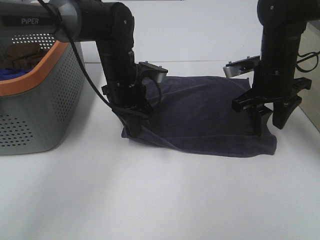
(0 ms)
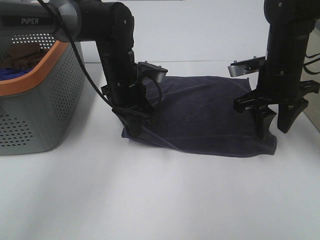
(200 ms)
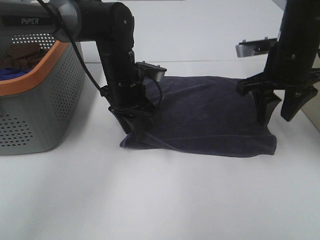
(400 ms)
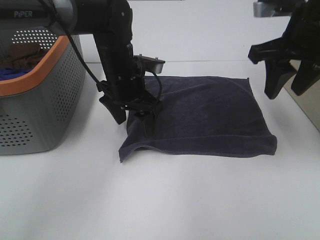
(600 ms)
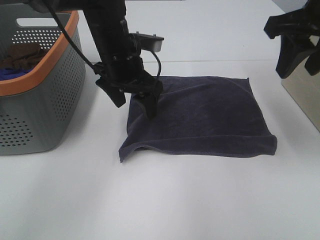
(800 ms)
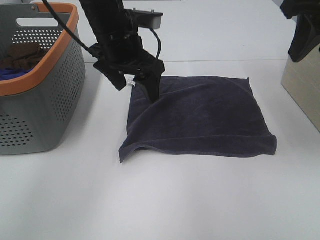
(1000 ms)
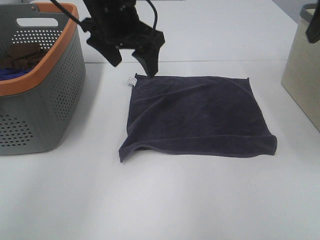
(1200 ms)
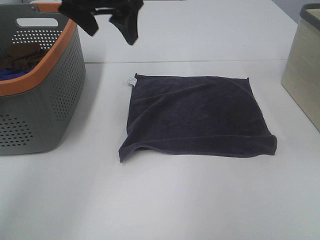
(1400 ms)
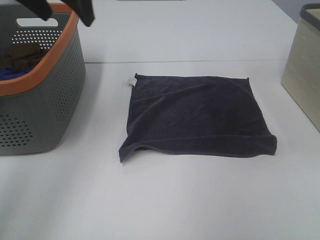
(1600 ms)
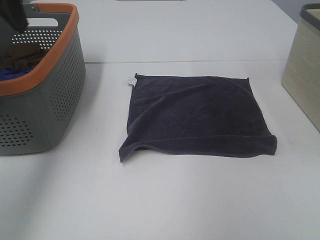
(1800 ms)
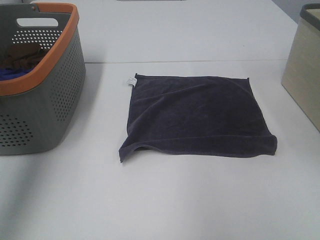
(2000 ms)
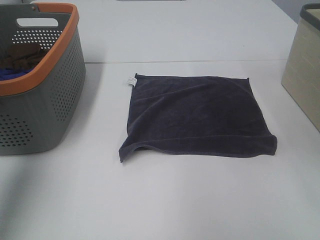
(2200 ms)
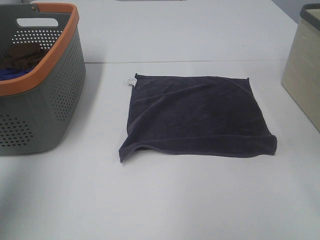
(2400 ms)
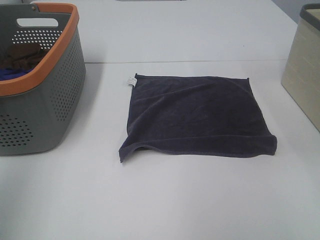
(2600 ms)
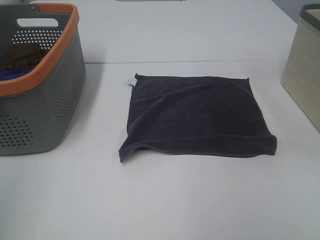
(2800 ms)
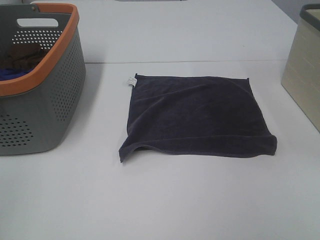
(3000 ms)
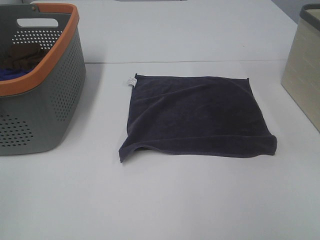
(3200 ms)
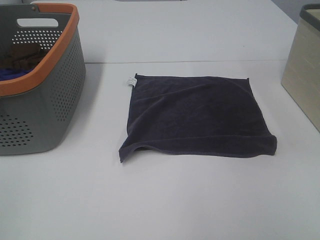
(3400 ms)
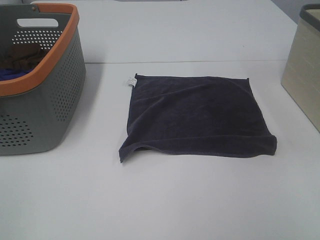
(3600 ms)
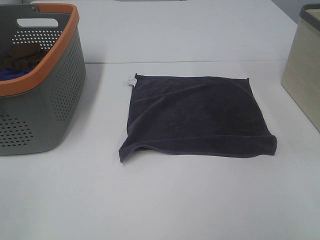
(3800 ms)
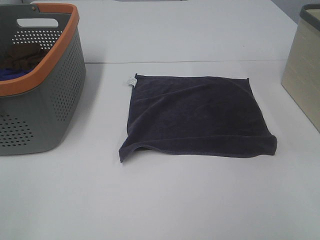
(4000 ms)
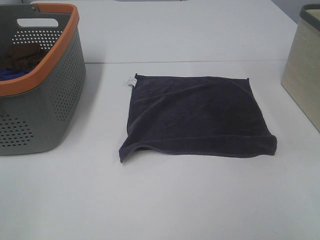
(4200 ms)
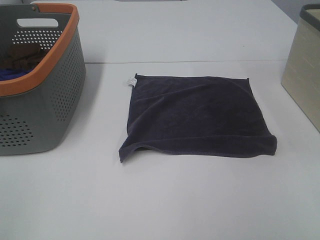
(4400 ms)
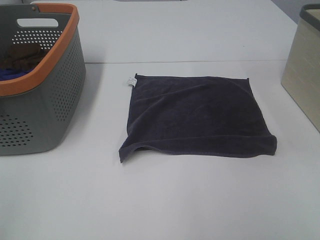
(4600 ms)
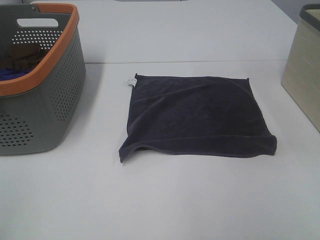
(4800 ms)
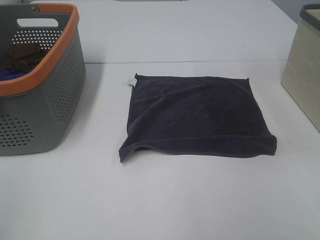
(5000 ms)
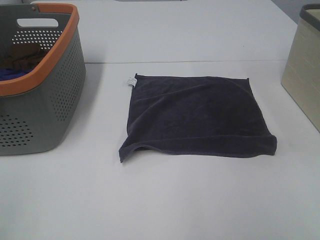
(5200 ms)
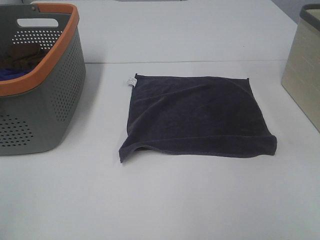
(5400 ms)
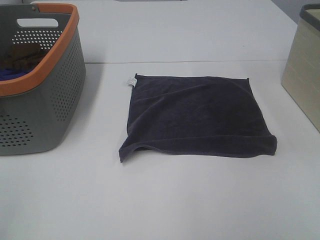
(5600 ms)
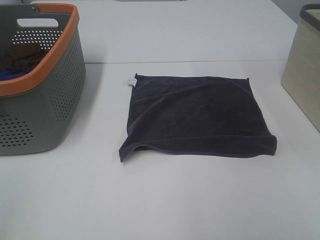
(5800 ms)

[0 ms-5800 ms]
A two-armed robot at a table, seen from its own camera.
Task of the whole recording: Remove the towel and place it.
0 ms to 1400 ms: The left gripper travels upward by about 20 cm, and opens its fingers; the right gripper shifts approximately 25 cm upward, backward and to the right.
1400 ms to 2800 ms: The left gripper shifts some 40 cm backward and to the left; the right gripper moves backward, about 15 cm, and opens up.

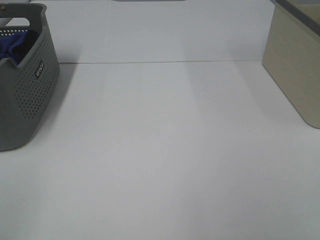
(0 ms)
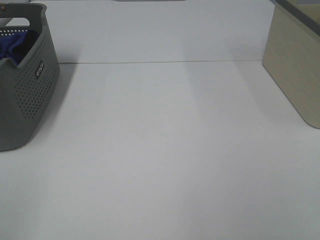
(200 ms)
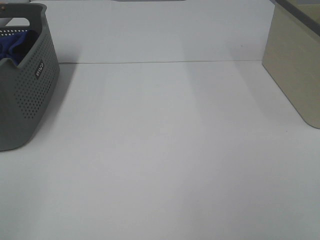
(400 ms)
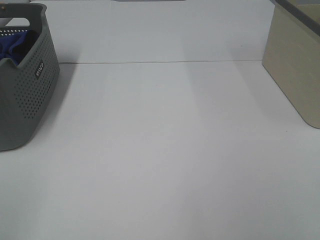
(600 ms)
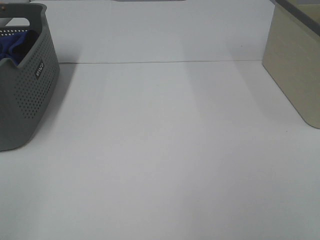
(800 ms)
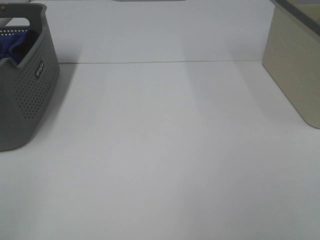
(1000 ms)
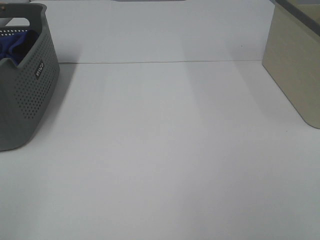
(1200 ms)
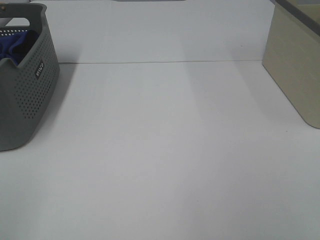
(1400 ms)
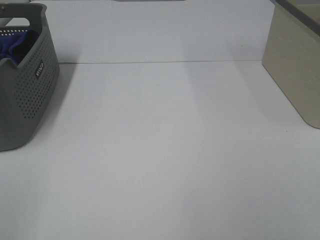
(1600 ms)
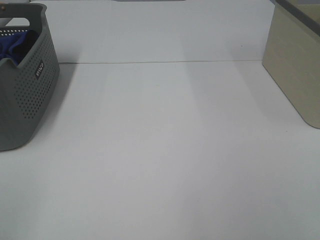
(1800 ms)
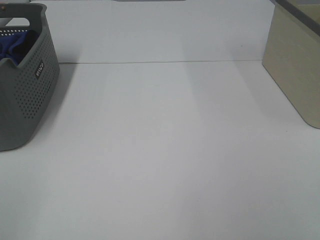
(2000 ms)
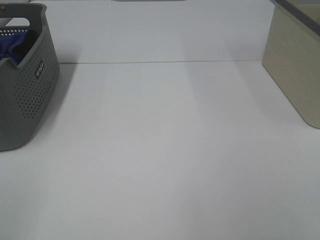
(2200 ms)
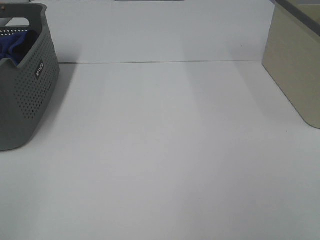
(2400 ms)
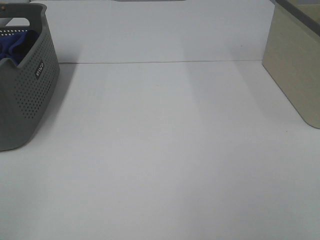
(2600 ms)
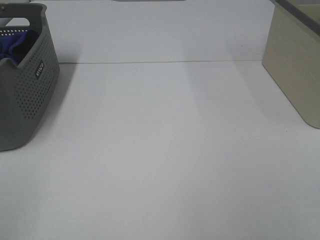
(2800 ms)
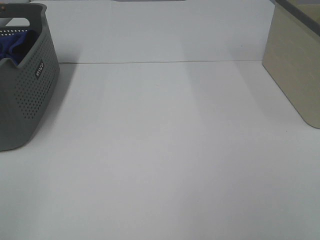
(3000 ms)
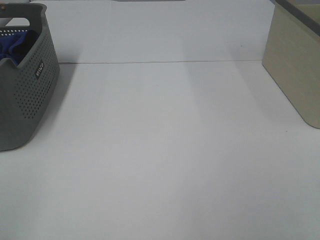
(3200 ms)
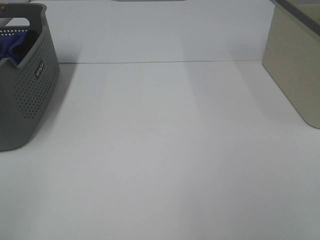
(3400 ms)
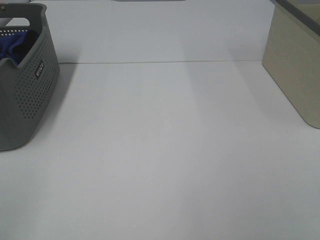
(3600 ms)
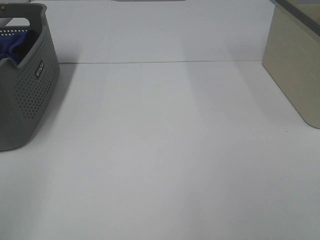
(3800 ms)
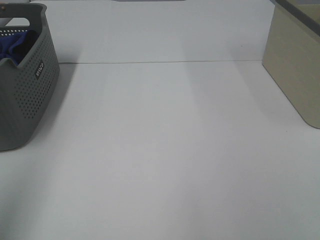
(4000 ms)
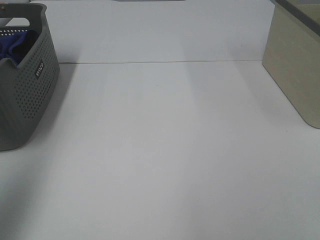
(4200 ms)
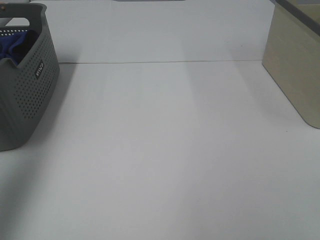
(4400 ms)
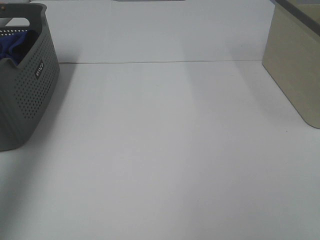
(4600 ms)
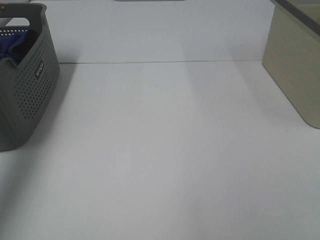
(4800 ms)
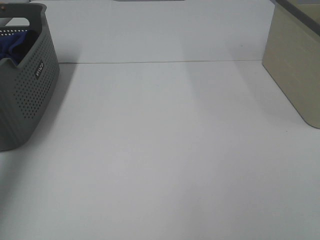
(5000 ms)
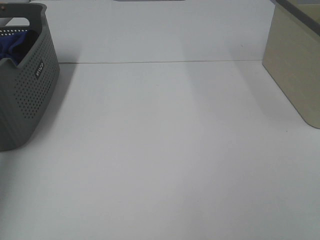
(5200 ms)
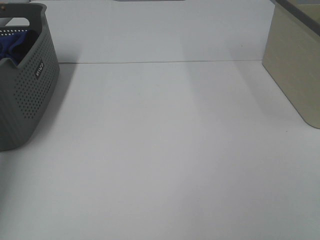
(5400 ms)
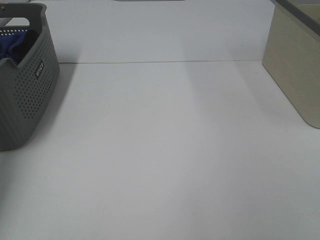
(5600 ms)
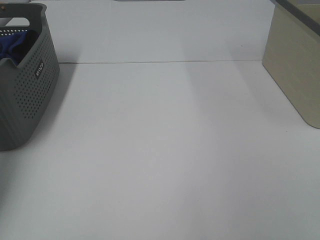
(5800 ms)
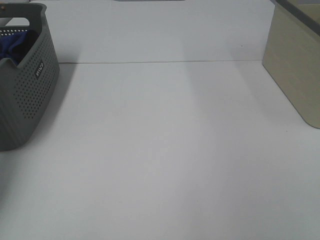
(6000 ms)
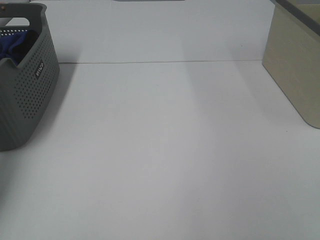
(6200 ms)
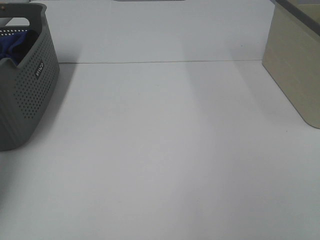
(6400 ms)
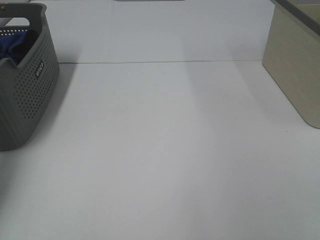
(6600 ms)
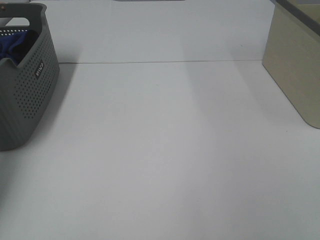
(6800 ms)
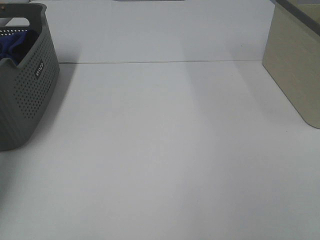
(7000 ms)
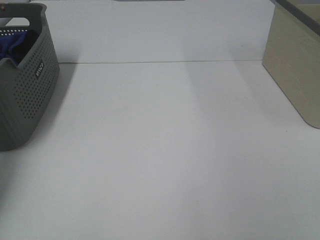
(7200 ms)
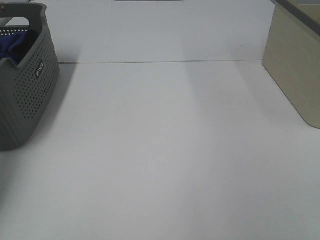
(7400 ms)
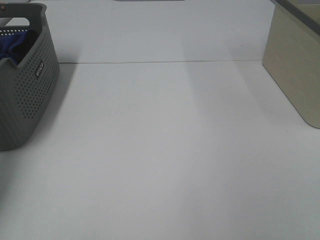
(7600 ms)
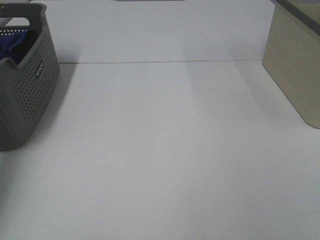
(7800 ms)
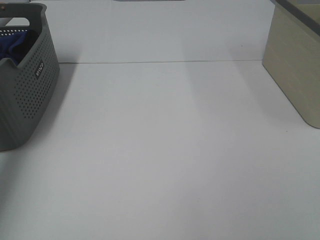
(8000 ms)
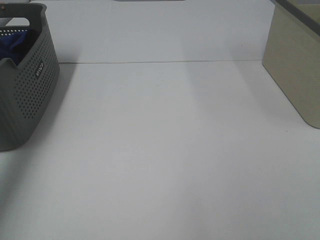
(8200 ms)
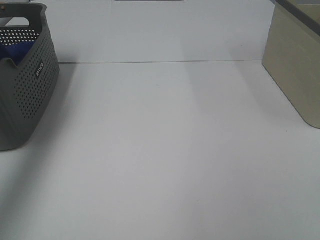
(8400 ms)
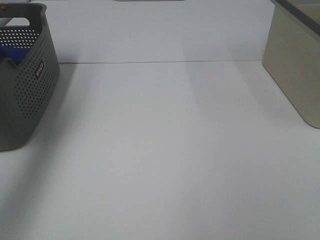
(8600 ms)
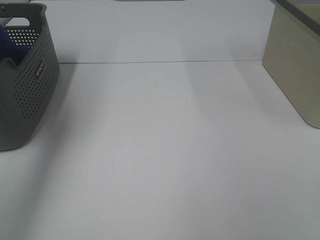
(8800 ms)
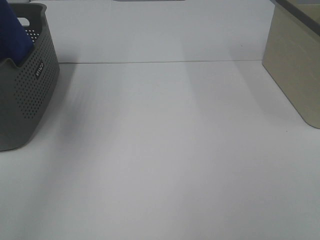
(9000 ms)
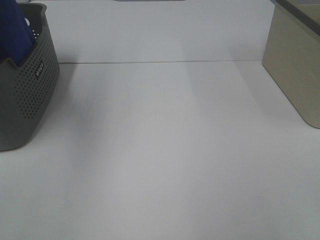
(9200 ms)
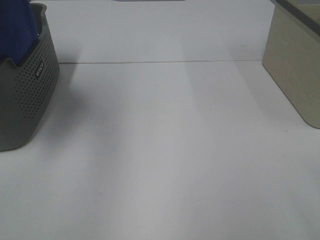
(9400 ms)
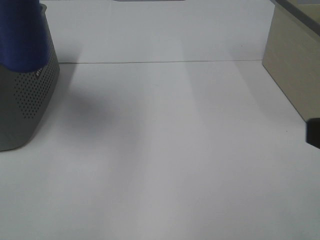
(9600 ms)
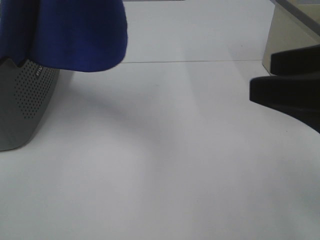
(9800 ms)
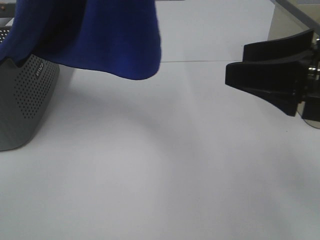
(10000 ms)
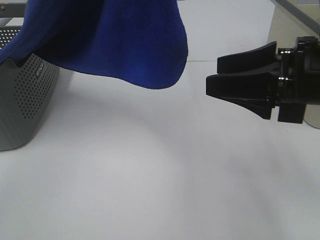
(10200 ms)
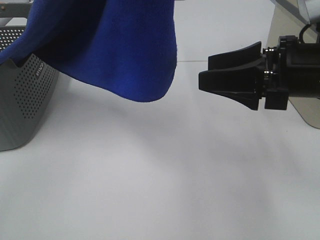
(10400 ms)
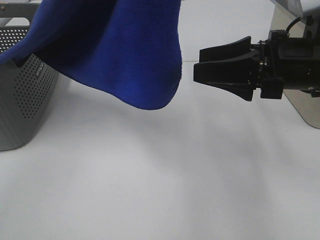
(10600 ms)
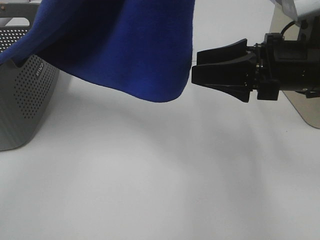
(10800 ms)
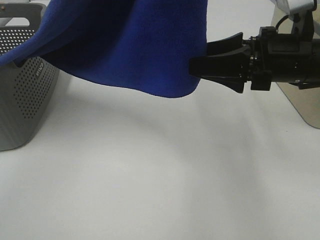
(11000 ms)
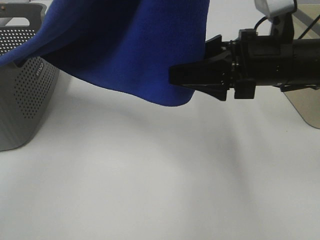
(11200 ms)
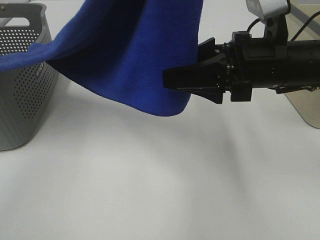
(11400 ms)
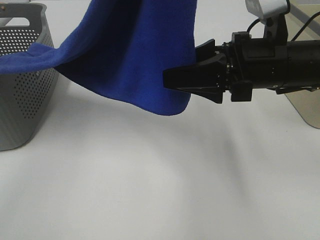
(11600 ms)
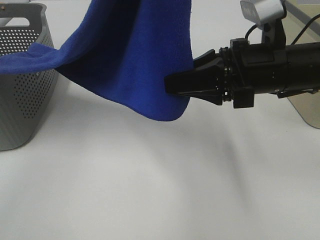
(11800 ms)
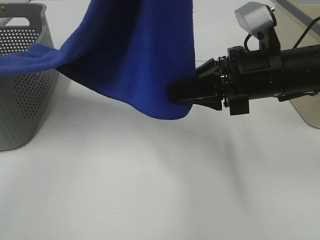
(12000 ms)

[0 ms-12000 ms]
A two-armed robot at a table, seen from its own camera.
Task of the whole recording: Remove the towel and place it.
0 ms to 3000 ms: Both grippers stay about where they are.
3000 ms to 4400 ms: The left gripper is displaced forward and upward by some 30 cm.
4400 ms to 6000 ms: The left gripper moves forward and downward, about 35 cm.
7600 ms to 9000 ms: The left gripper heads upward, to the right and backward, covering approximately 35 cm.
9000 ms to 10400 ms: The left gripper goes some 20 cm to the right and backward, while the right gripper shifts some 25 cm forward.
10400 ms to 12000 ms: The right gripper ends up about 5 cm from where it was, and closes up.

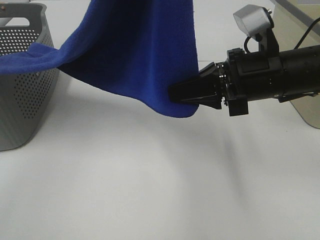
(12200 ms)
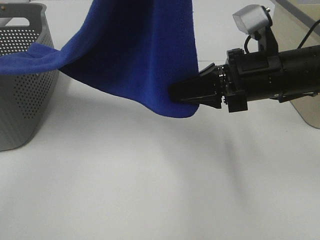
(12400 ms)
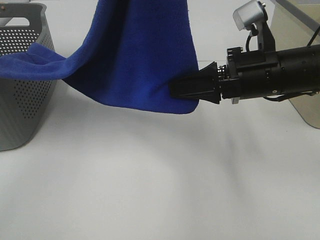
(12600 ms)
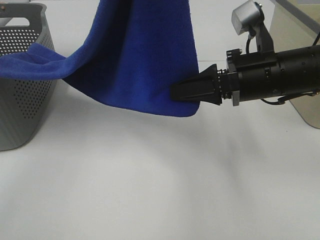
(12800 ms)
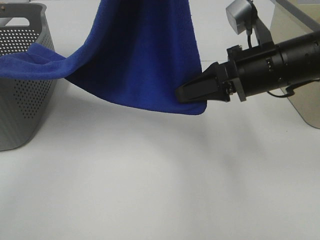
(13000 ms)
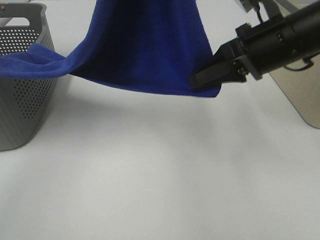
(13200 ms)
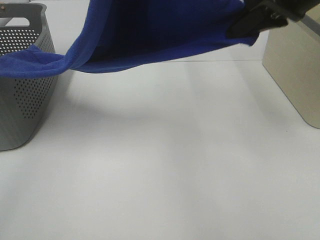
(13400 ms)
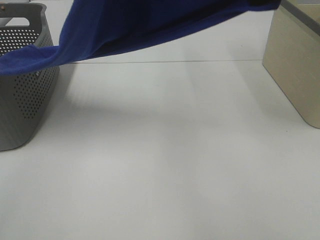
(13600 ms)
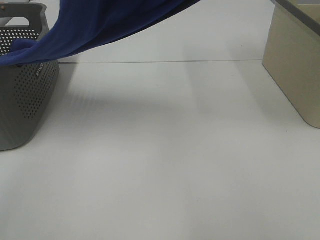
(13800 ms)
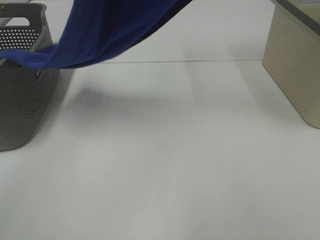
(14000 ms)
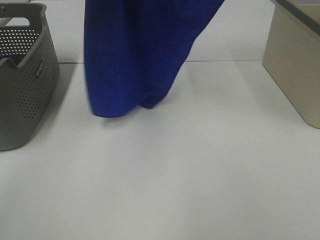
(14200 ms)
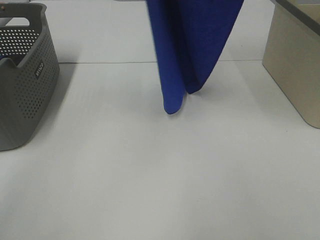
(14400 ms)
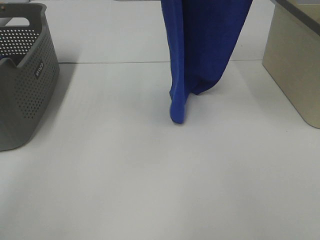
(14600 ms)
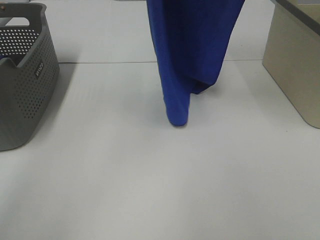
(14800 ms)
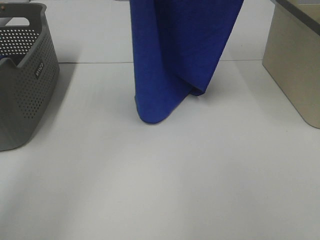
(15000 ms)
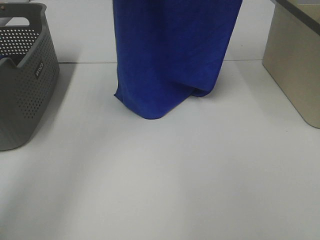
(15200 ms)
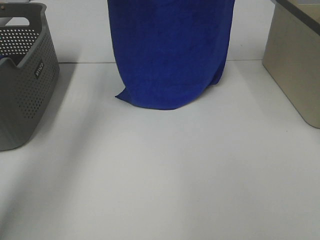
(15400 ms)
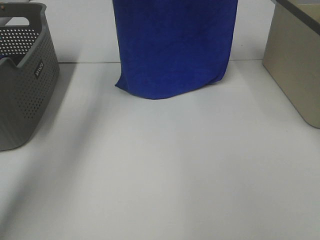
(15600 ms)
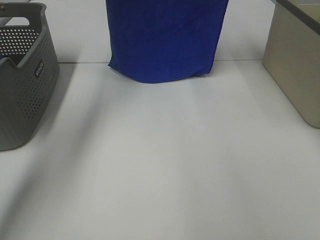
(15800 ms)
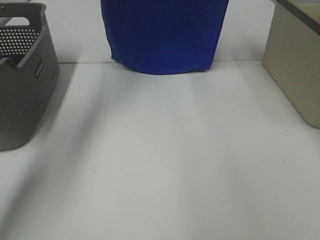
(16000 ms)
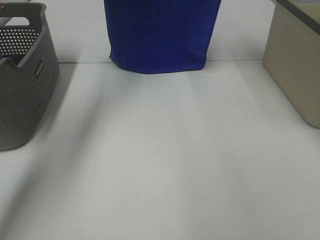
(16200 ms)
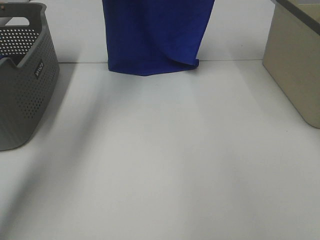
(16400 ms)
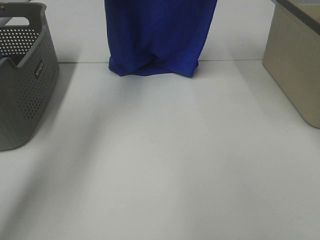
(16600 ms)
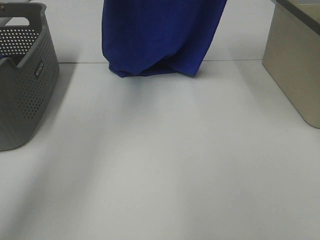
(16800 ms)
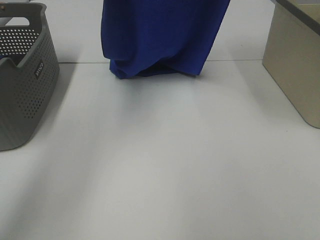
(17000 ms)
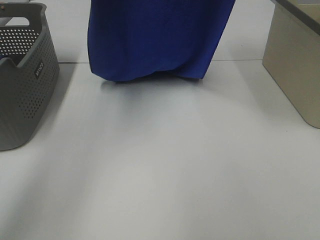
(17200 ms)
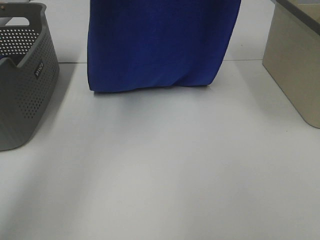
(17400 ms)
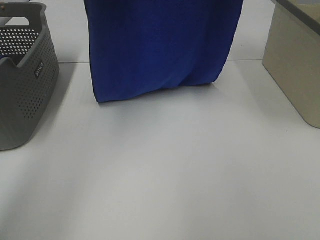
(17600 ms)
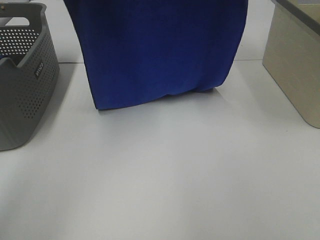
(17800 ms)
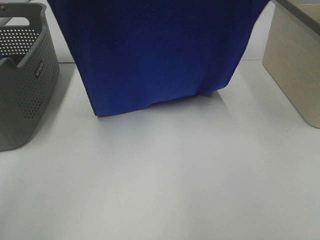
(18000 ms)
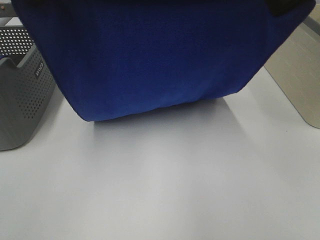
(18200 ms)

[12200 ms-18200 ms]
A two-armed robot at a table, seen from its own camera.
Task of the whole recording: Remove the towel and place it.
Step, 12800 ms to 17400 ms: Left hand: spread the blue towel flat on the table.
Step, 12800 ms to 17400 ms: Right hand: spread the blue towel flat on the table.
12200 ms to 13800 ms: The right gripper travels upward by approximately 25 cm. The left gripper goes some 5 cm forward.
13800 ms to 15200 ms: The left gripper heads forward and downward, covering about 15 cm. The right gripper goes roughly 10 cm forward.
15200 ms to 16600 ms: The right gripper moves downward, some 5 cm; the left gripper is displaced forward by about 10 cm.
16600 ms to 18200 ms: Both grippers travel together backward, about 20 cm.
